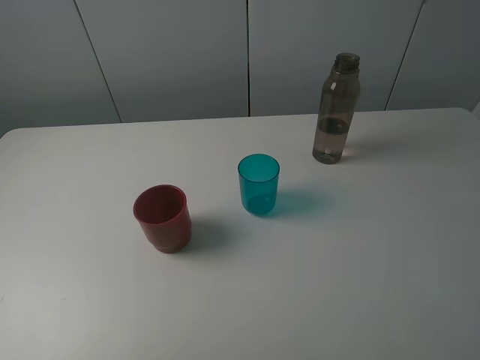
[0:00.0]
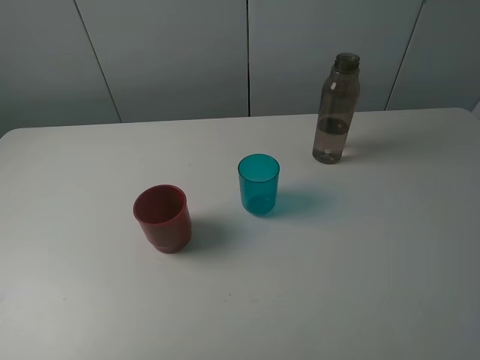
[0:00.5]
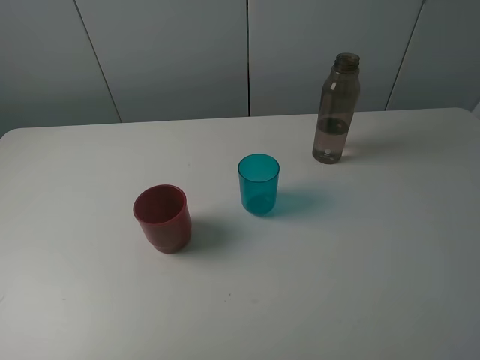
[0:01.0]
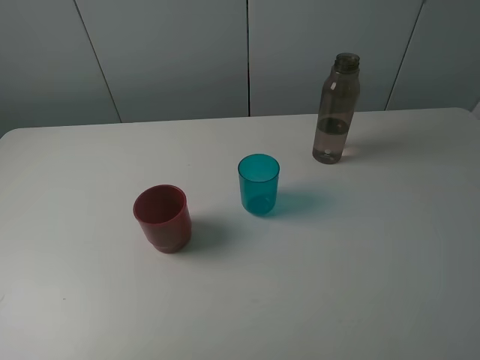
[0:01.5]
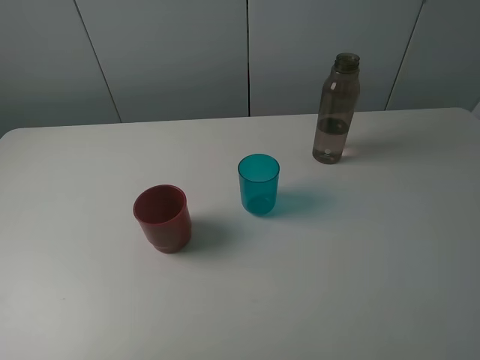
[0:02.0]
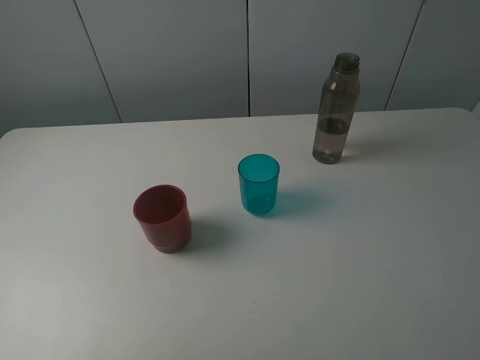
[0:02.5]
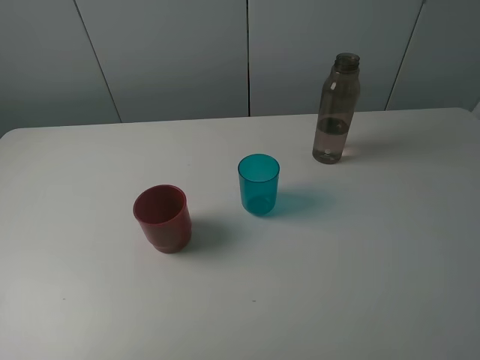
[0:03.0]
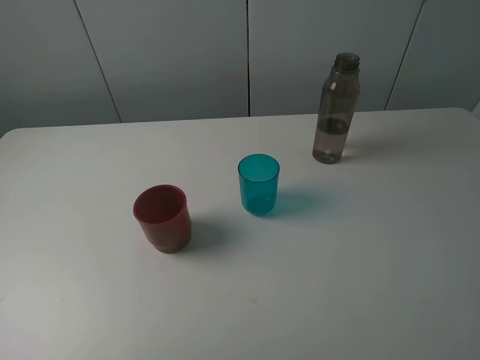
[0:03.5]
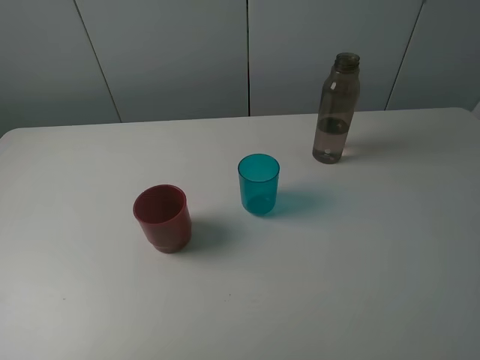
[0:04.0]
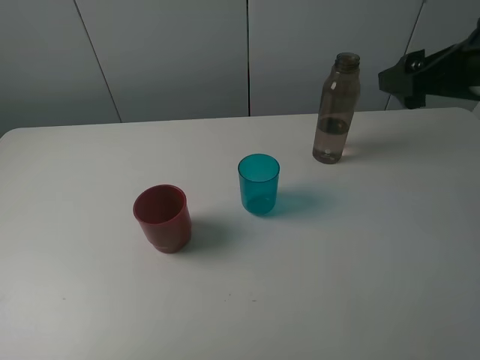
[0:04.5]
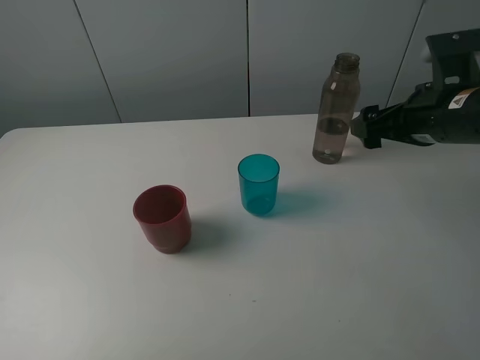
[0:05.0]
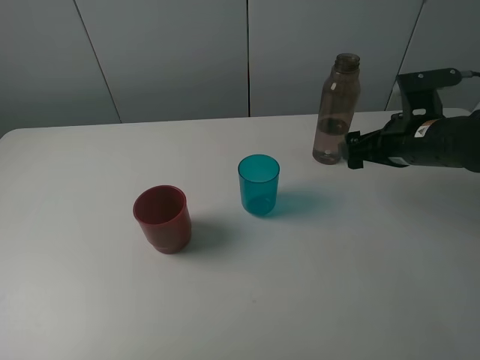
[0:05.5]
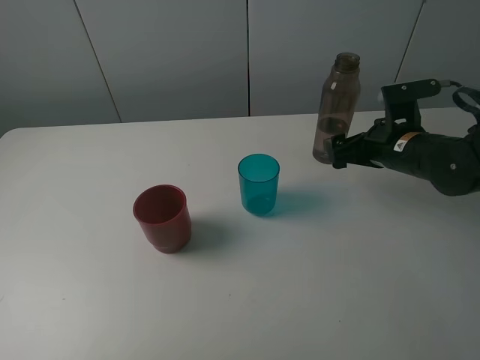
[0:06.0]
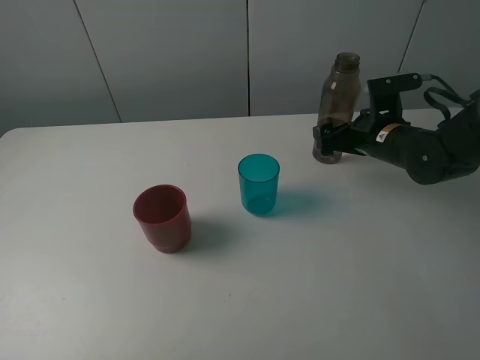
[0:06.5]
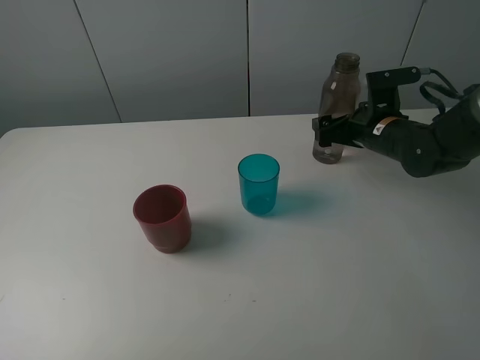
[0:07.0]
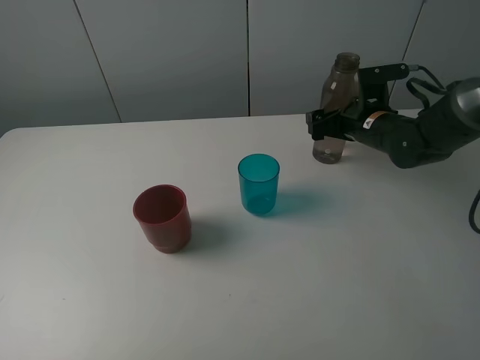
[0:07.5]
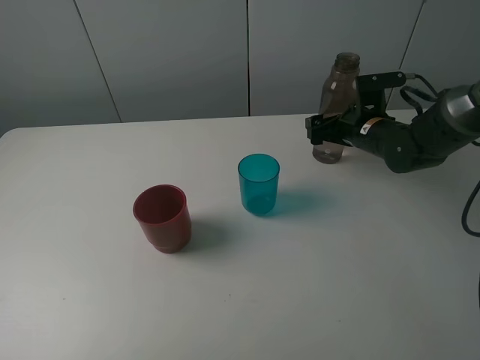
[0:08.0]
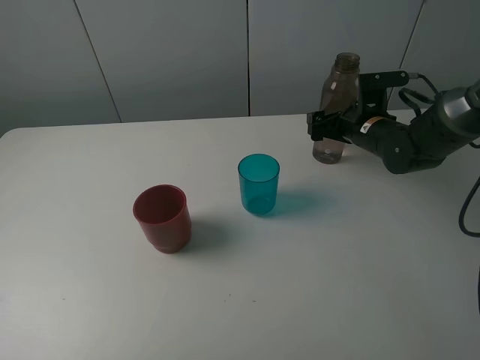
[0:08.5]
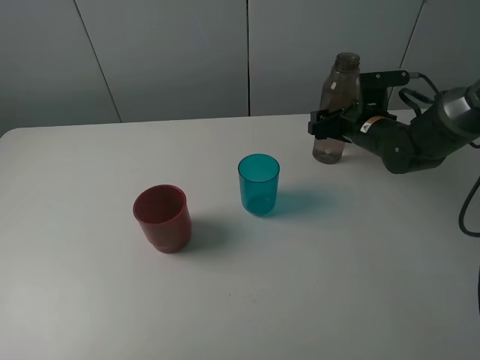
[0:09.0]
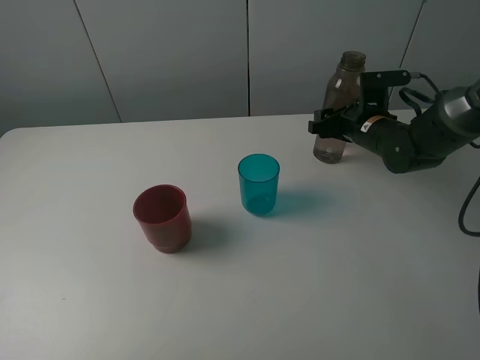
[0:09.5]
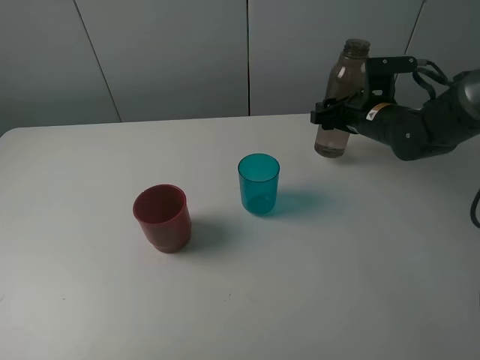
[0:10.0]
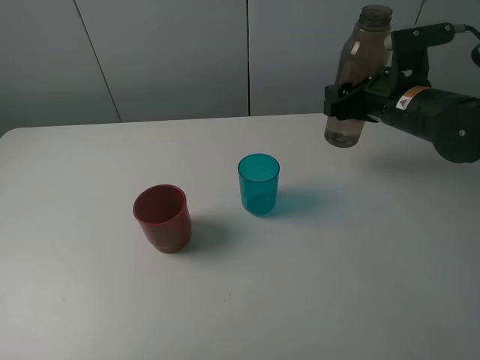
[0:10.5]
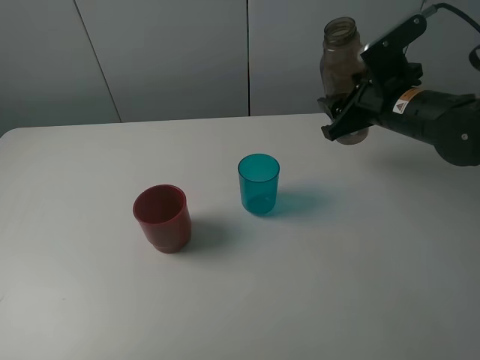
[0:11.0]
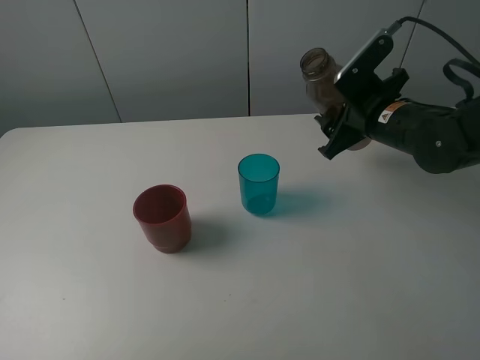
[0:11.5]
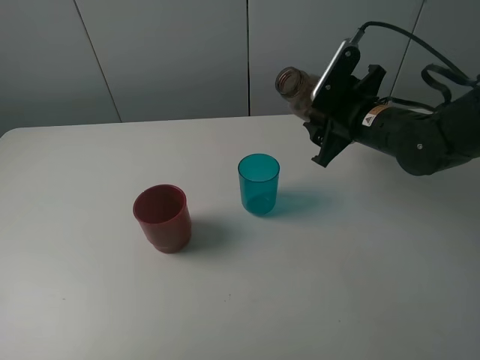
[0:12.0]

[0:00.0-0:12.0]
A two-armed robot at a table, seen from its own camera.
Task of the whole recording: pick up the bottle and pour water into the cup, then pick up the cup containing water and pour it into another cup.
Step, 0.0 to 9.0 s: Grasp the brown bottle with the right gripper.
0.0 to 2.0 s: Both grippers stay put.
4.0 to 6.0 s: The right gripper travels downward and forward by about 25 cm.
6.0 to 8.0 s: The right gripper heads forward, covering about 5 cm.
8.0 to 10.0 s: The right gripper closes its fingers.
10.0 to 12.0 s: The right gripper is displaced backward by some 5 cm.

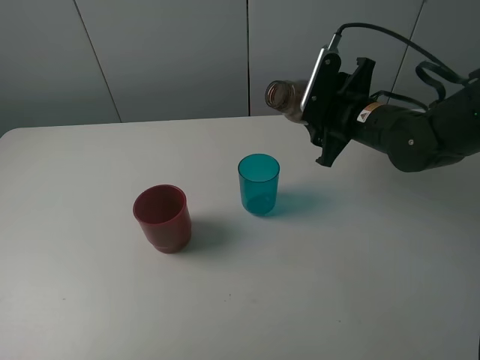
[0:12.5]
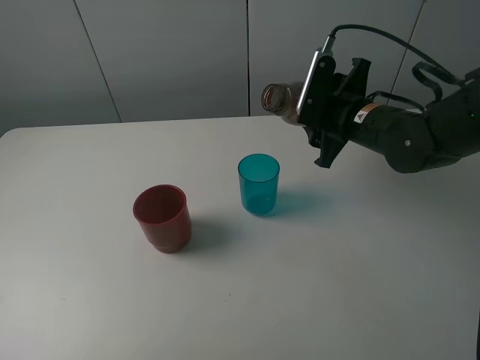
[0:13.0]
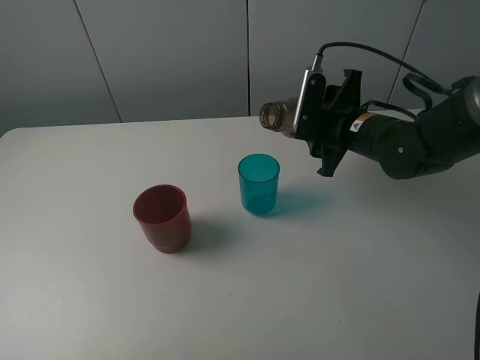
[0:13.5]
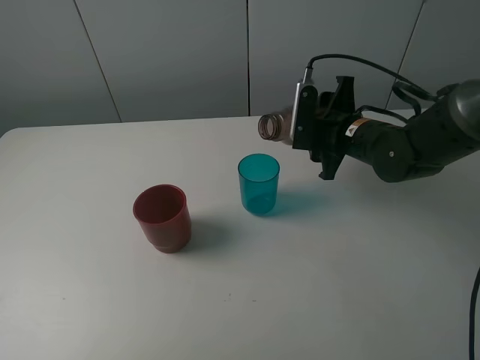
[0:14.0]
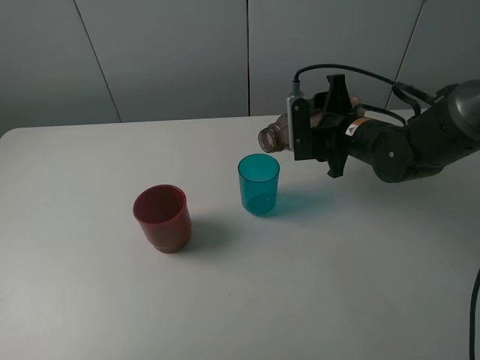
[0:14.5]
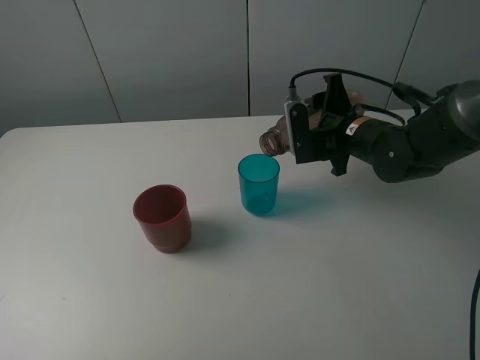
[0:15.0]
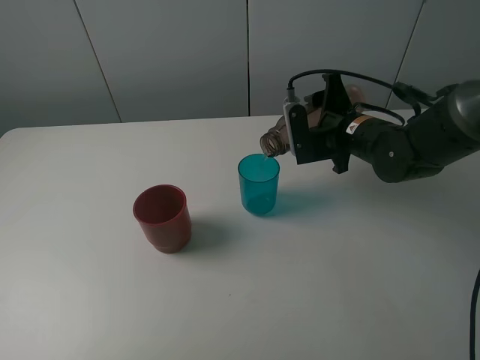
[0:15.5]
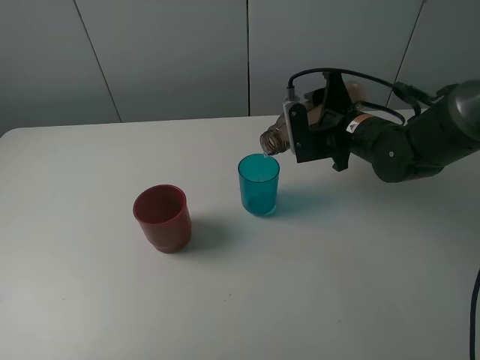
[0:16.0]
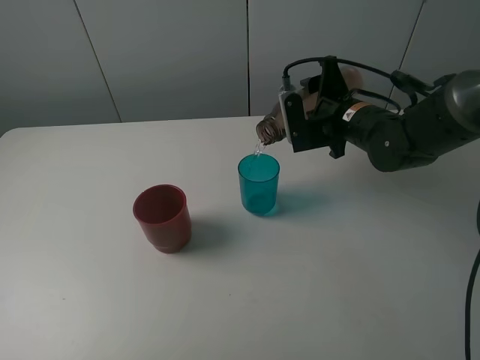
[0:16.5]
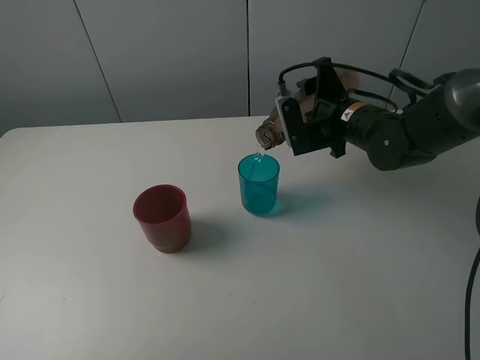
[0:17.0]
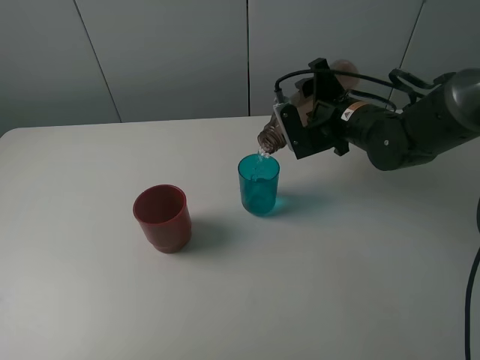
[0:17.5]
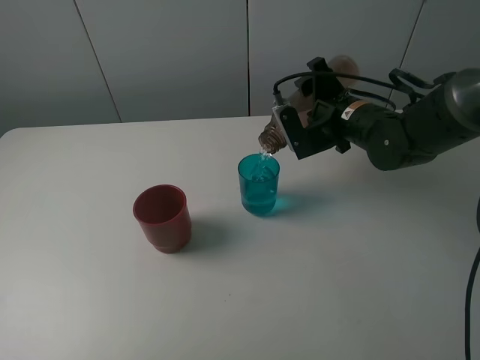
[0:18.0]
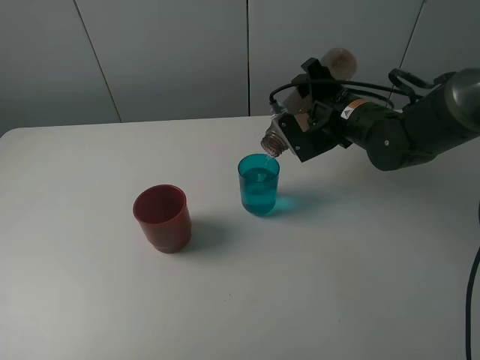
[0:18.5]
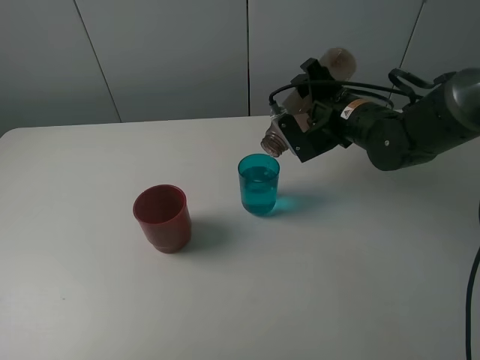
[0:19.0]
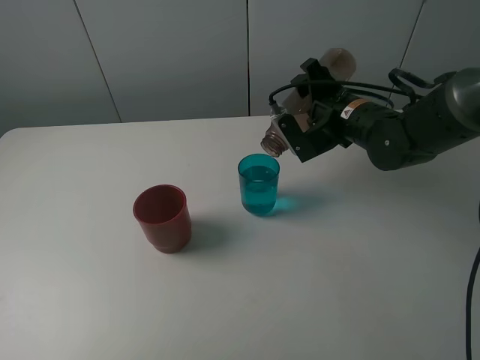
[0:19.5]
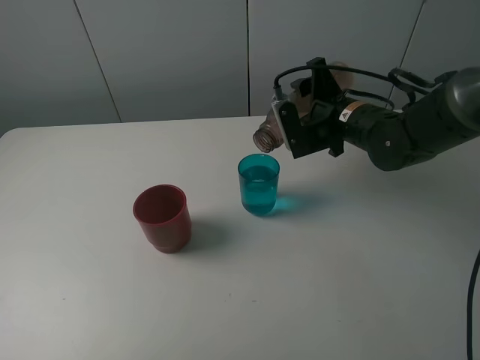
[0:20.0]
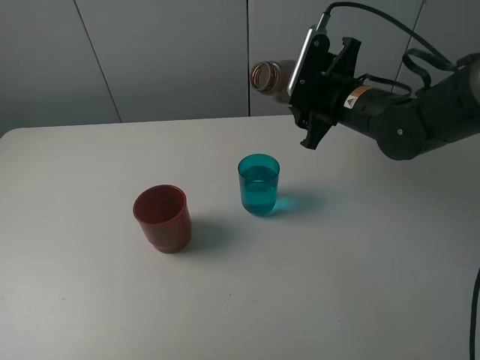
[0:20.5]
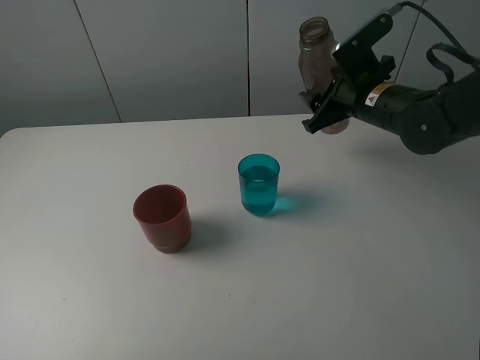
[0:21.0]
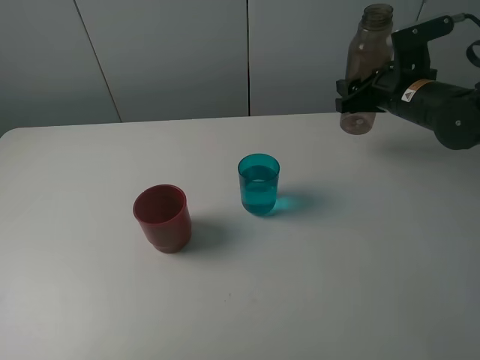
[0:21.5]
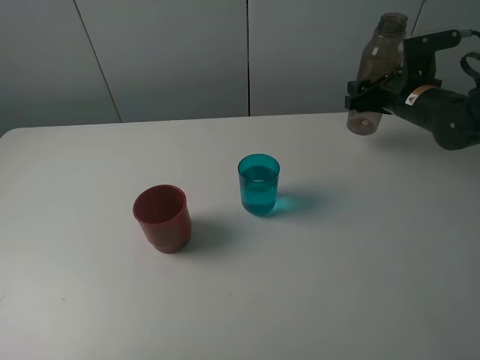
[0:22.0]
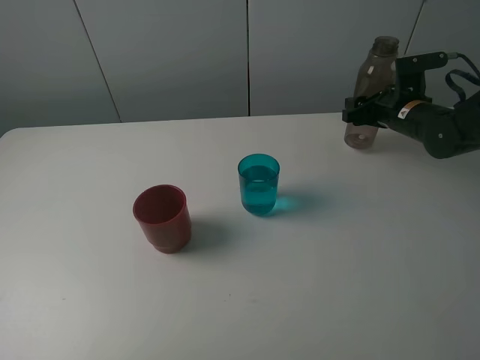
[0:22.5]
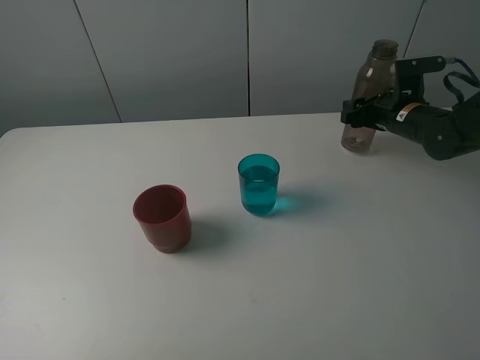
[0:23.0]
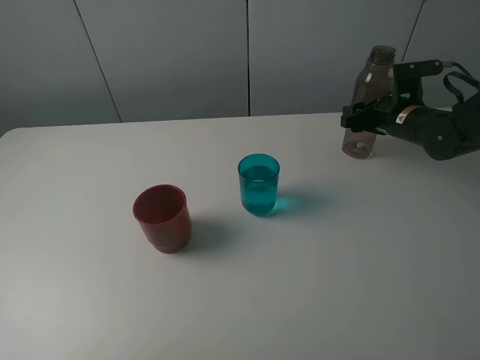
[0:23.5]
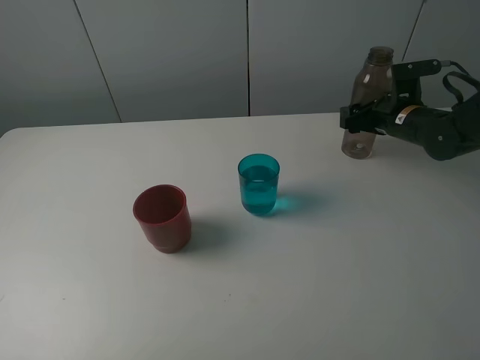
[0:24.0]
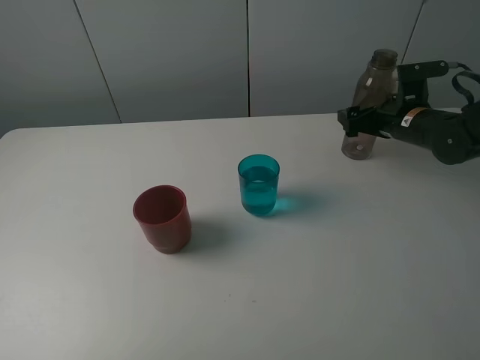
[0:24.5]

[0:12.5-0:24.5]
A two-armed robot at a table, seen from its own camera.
Task of the whole recording: pick up the bottle and pour water into the cup, then pick up the cup containing water and pour it into another cup.
Step, 12.5 to 19.5 s: Pour water from brown bottle to blue cup with the right gripper.
14.5 to 16.5 s: The grippers move only a little.
16.5 to 18.5 s: The grippers move only a little.
20.5 to 22.5 s: The right gripper heads to the right, forward and downward, covering some 15 cm.
22.5 to 24.5 s: The right gripper opens.

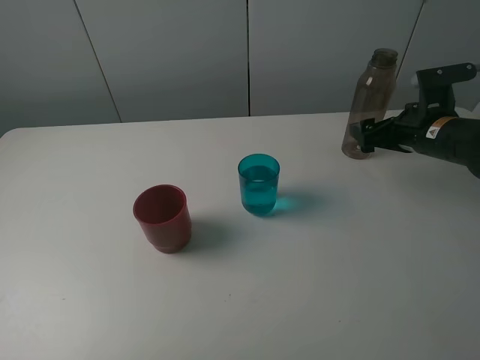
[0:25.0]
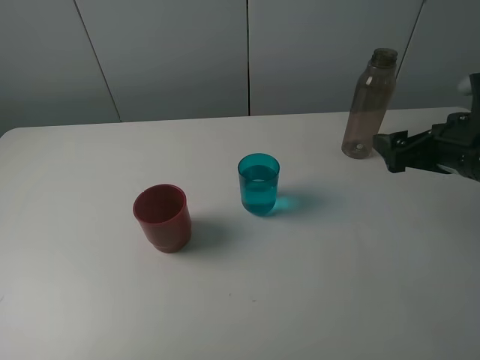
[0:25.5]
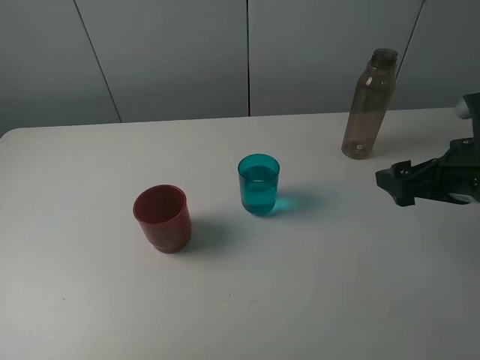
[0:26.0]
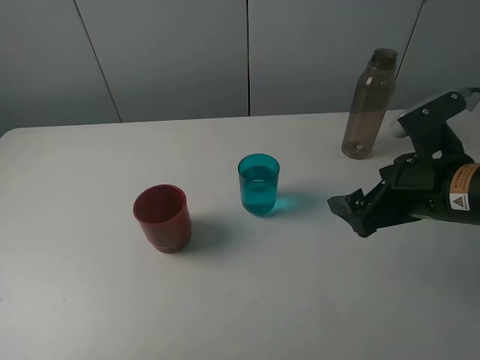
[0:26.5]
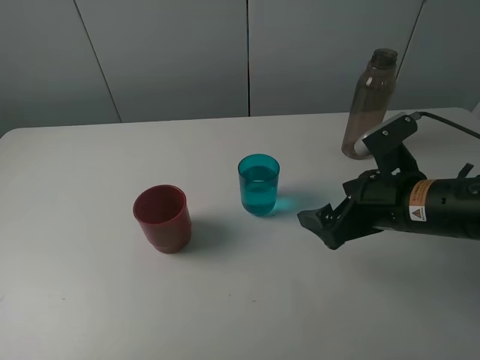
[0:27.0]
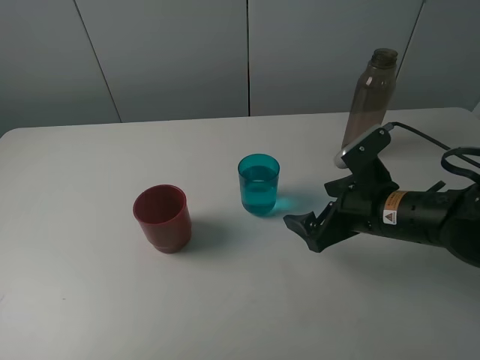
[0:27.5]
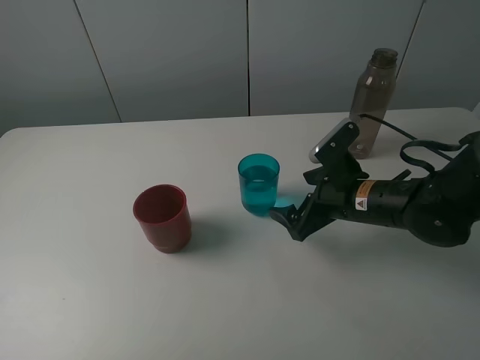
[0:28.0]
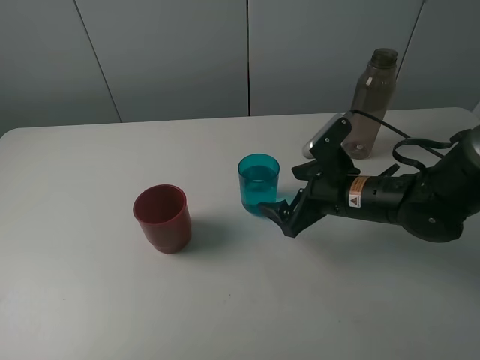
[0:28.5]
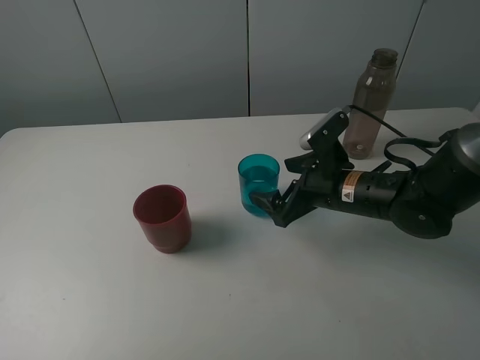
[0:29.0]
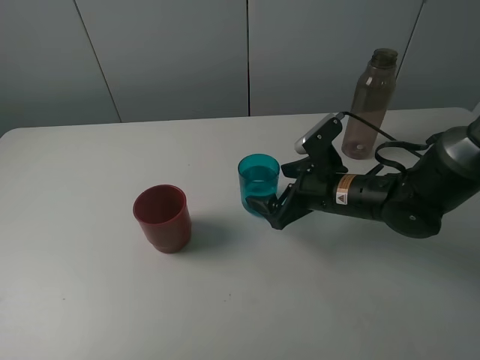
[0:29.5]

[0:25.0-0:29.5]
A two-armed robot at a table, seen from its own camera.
Task of the whole recording: pick up the bottle and pour water into the cup, then pick up the cup containing water and pour it into another cup.
25.0 to 27.0 s: The right gripper shifts roughly 15 cm backward and to the left.
27.0 to 29.5 s: The right gripper is displaced forward, downward and to the left by approximately 10 cm.
